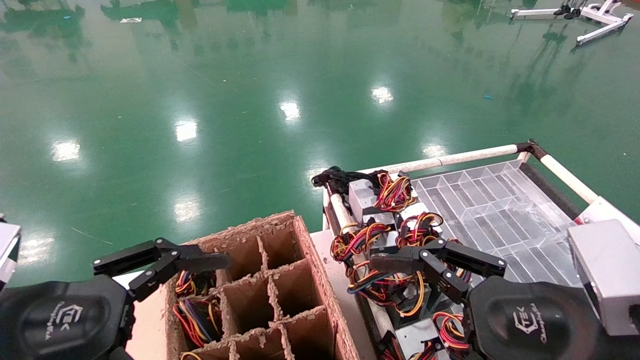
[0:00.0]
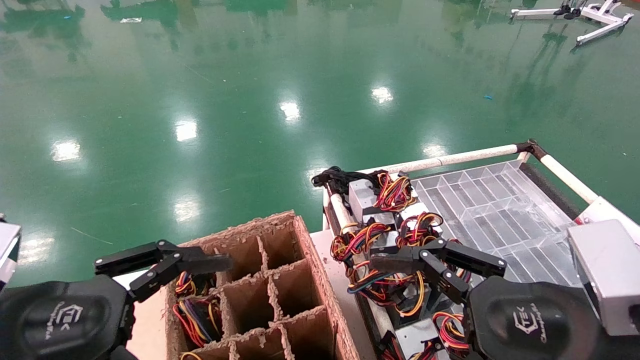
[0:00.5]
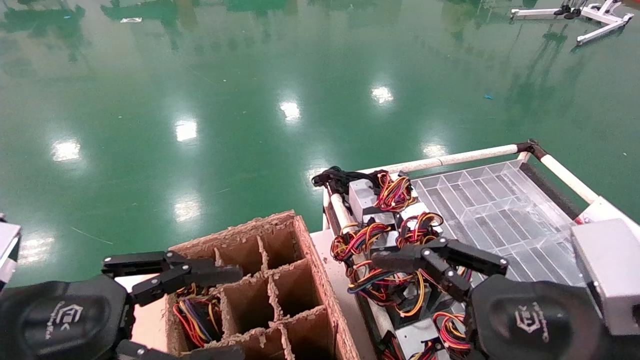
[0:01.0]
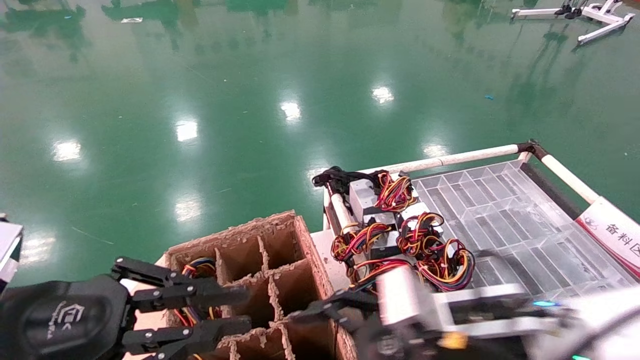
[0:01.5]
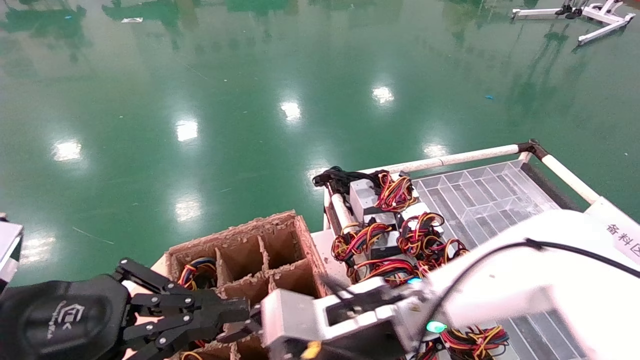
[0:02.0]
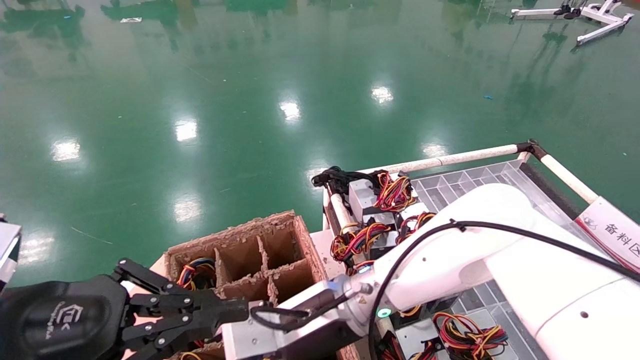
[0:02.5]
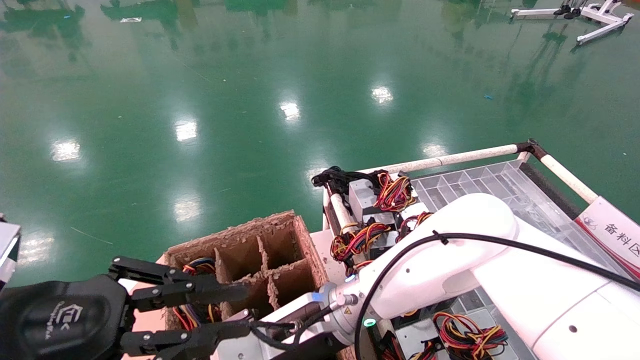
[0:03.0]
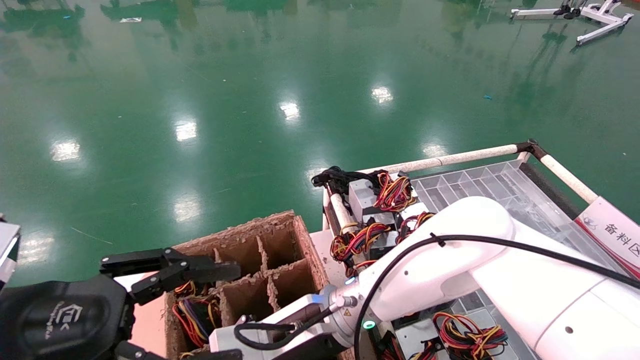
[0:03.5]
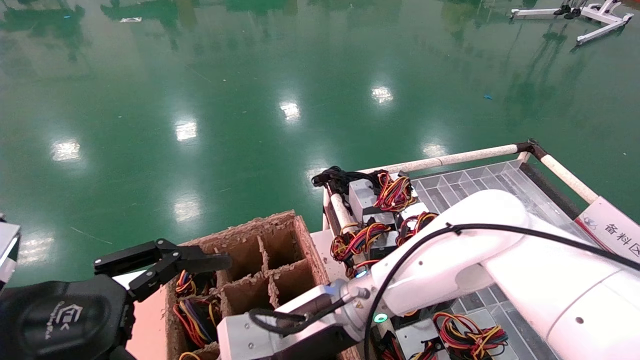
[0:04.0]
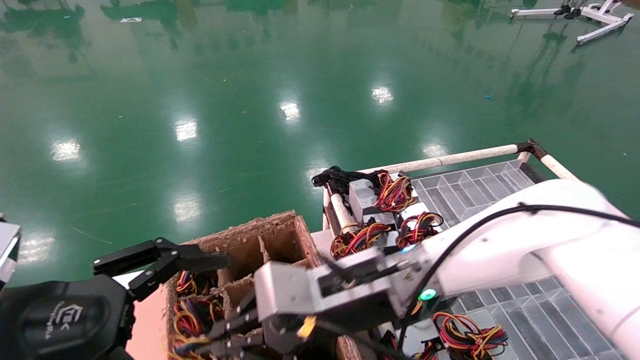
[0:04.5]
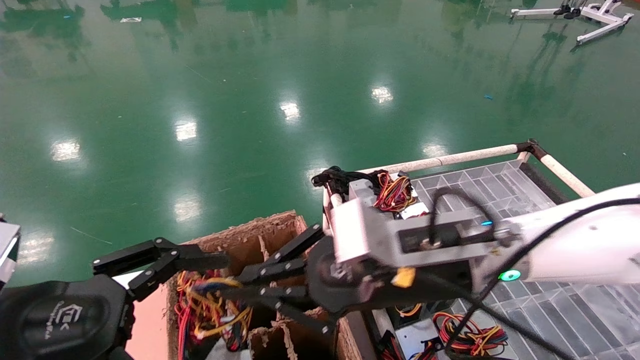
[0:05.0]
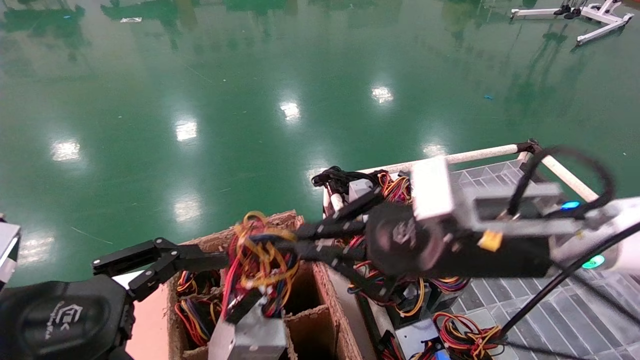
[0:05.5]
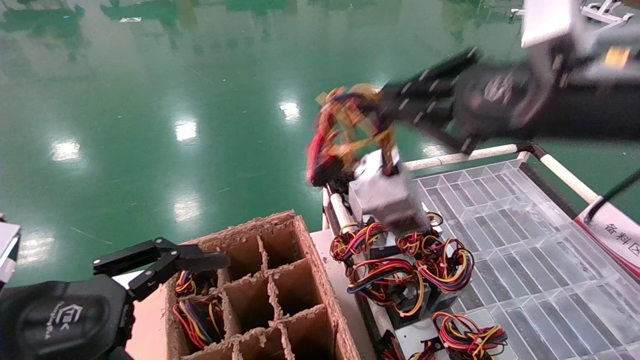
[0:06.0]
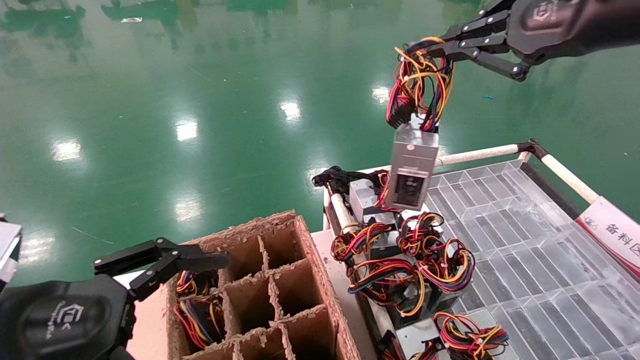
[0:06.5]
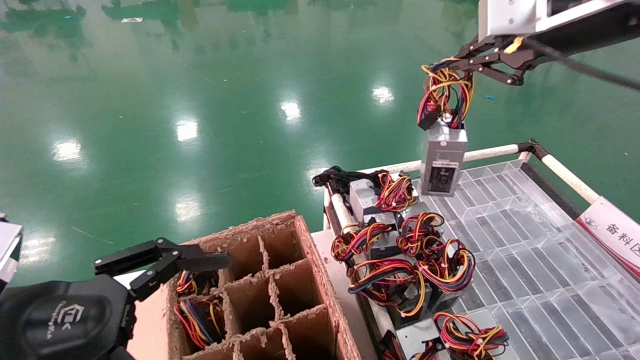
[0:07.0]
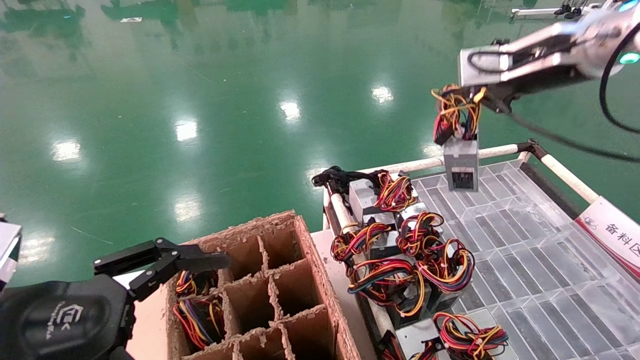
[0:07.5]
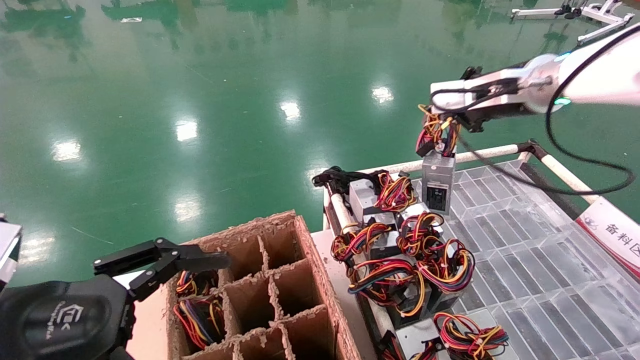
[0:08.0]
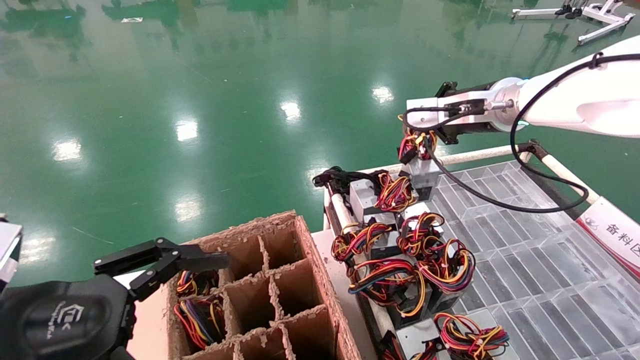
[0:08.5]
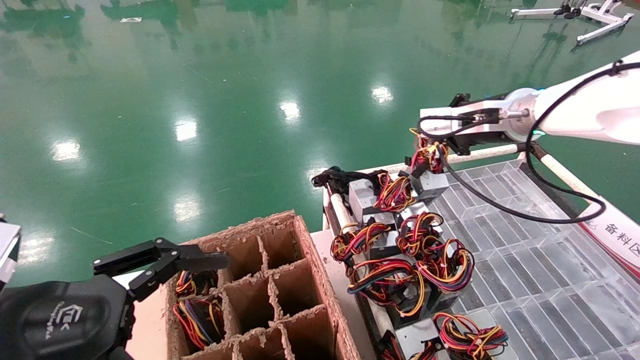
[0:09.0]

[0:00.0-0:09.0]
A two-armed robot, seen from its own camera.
Step, 0:01.0 to 0:03.5: Grab and lift the power supply from the large box.
0:00.0 to 0:02.0: The left gripper closes. Meanwhile the right gripper travels to the left and forward by roughly 20 cm.
0:02.0 to 0:04.5: The left gripper opens up. The right gripper closes.
0:04.5 to 0:07.0: The right gripper travels upward and to the right by roughly 35 cm.
0:07.0 to 0:09.0: The right gripper travels forward and downward by about 15 cm.

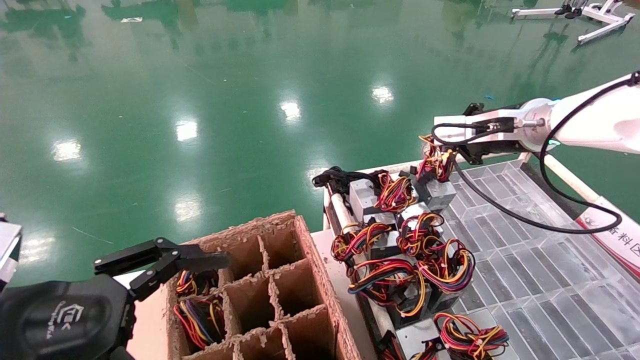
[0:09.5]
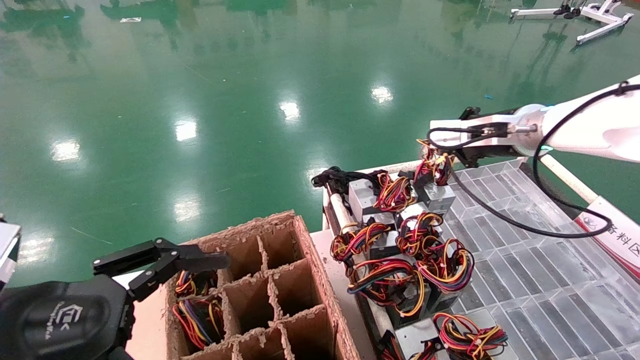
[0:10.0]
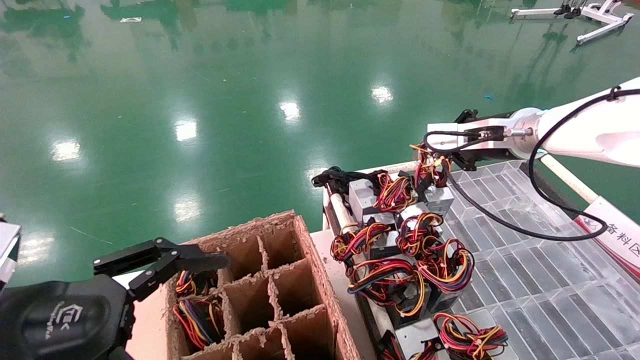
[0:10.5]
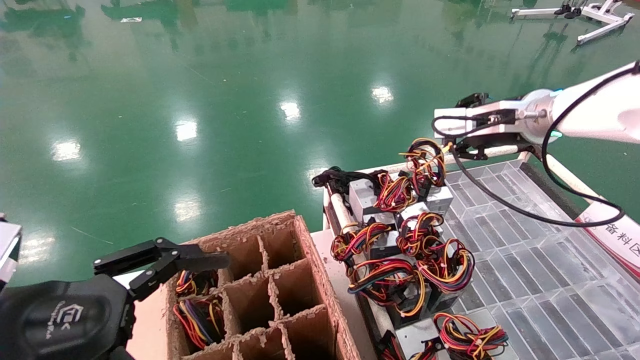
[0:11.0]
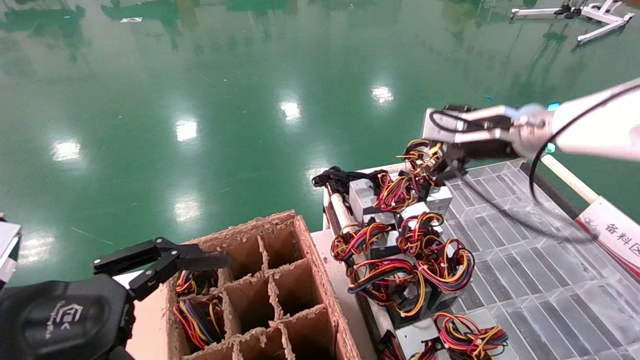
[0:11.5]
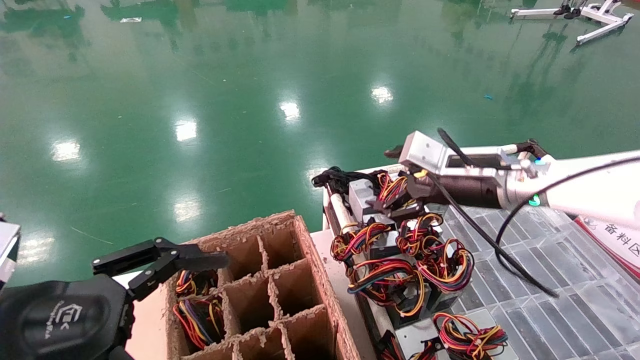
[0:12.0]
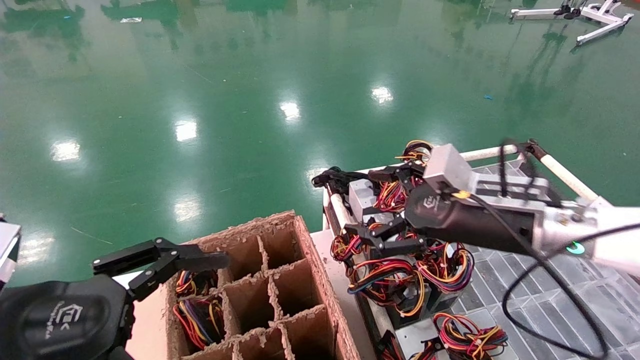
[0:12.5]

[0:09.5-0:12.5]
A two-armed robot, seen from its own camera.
0:09.5 to 0:11.0: The grippers make only small movements.
0:11.0 to 0:12.5: The right gripper shifts approximately 15 cm downward, backward and to the left, and opens.

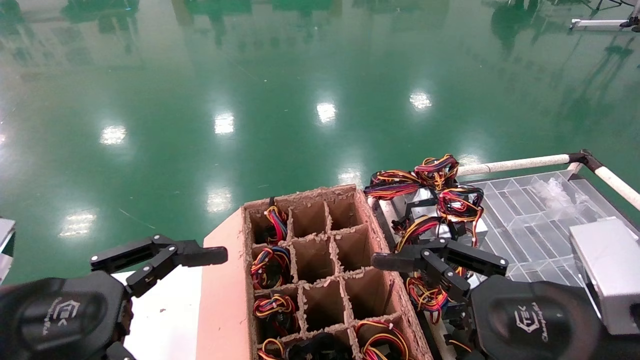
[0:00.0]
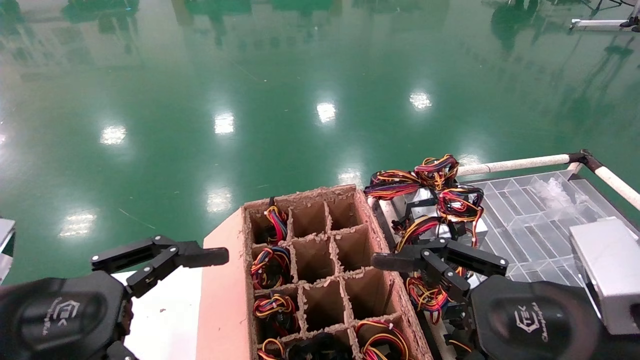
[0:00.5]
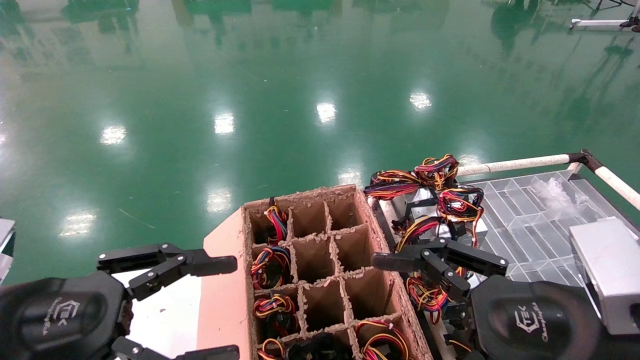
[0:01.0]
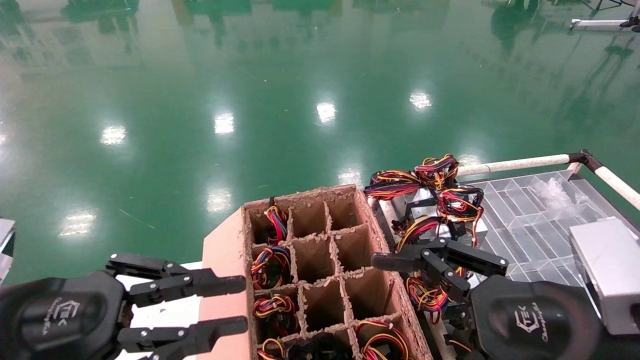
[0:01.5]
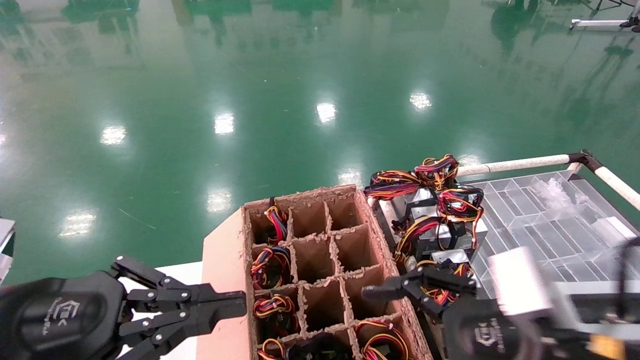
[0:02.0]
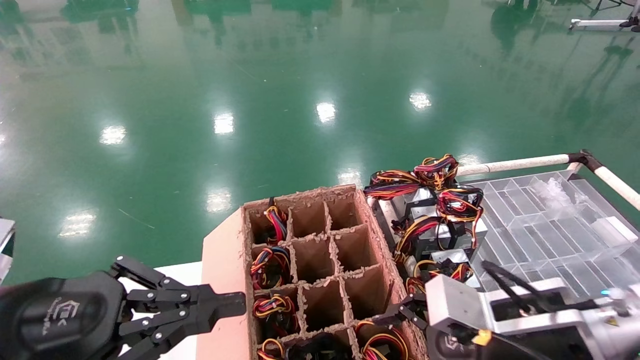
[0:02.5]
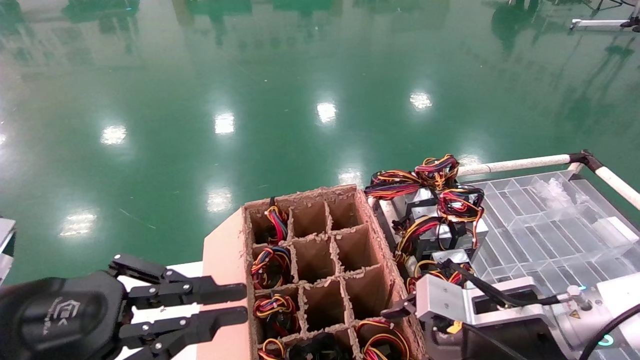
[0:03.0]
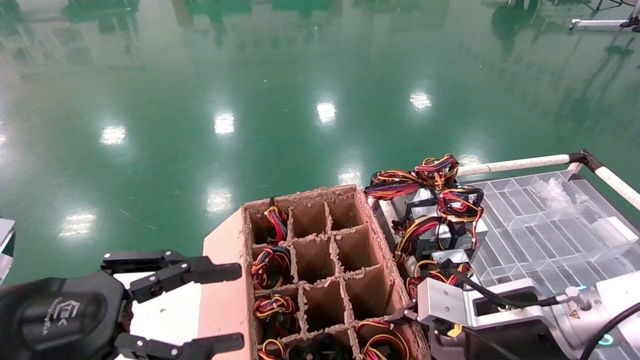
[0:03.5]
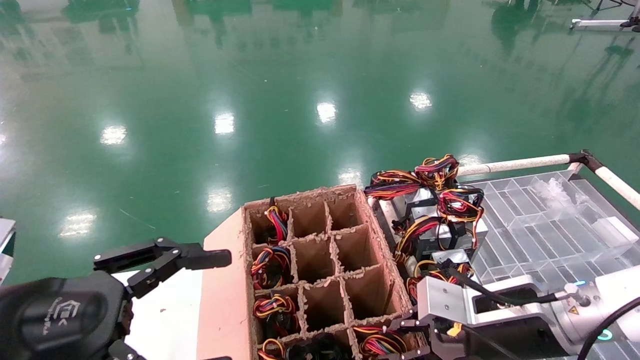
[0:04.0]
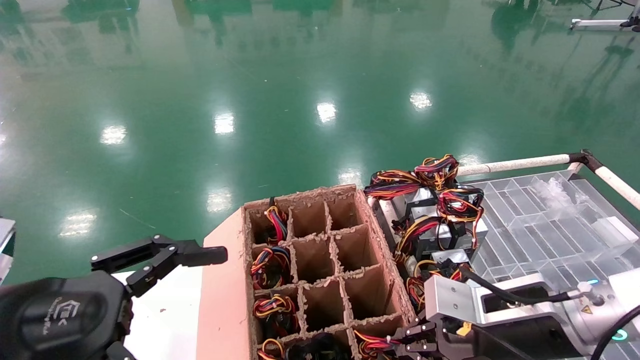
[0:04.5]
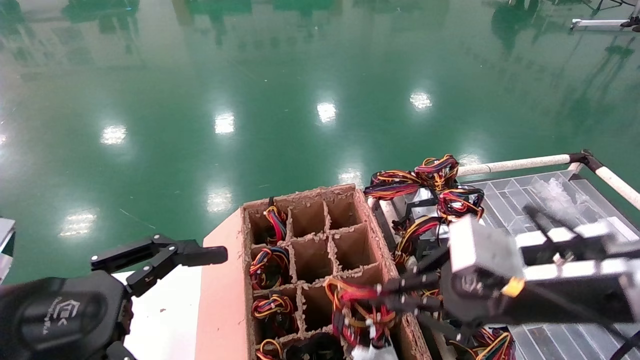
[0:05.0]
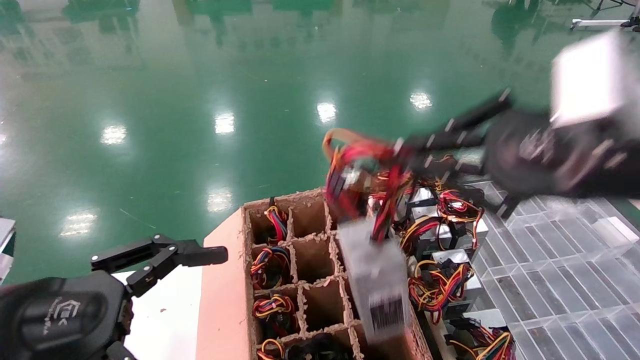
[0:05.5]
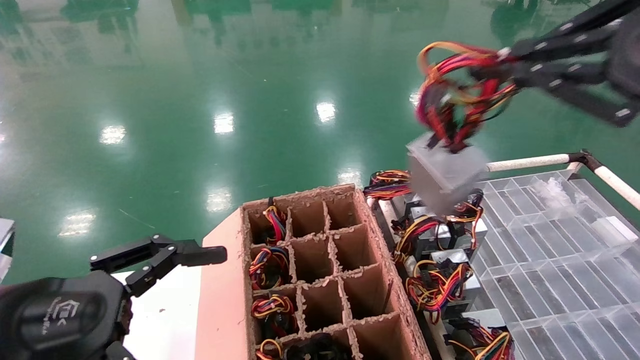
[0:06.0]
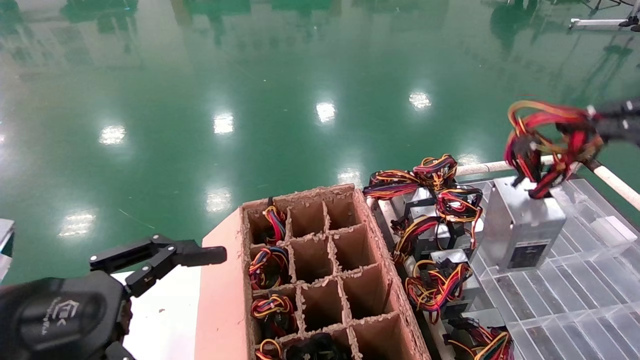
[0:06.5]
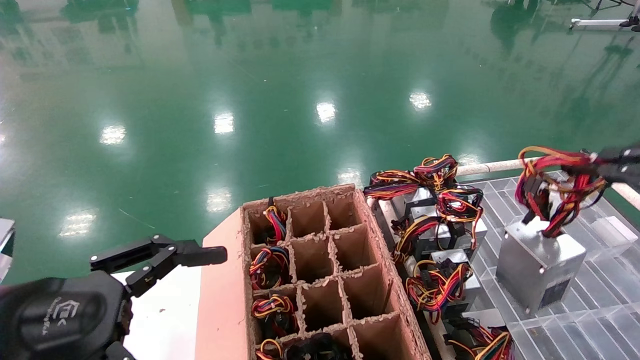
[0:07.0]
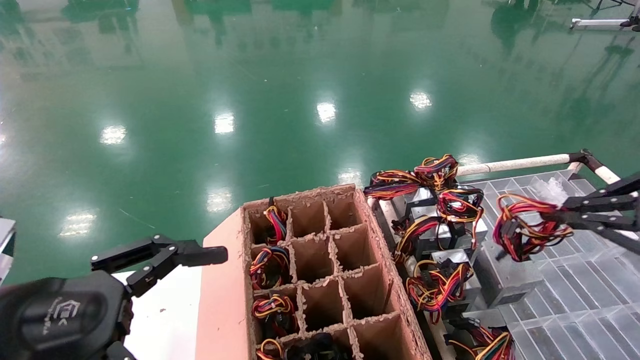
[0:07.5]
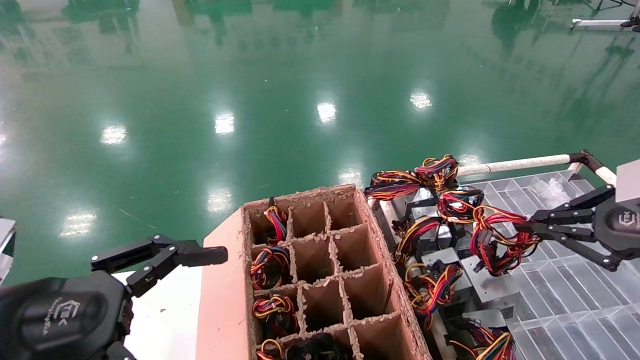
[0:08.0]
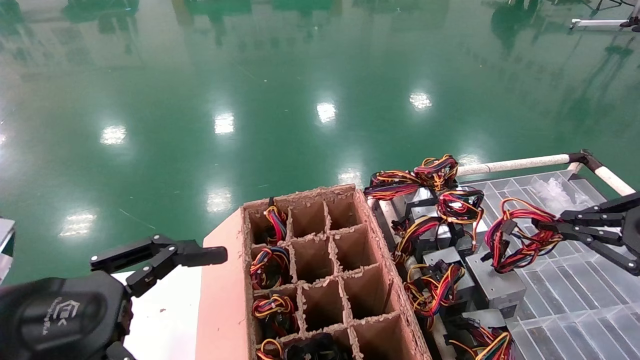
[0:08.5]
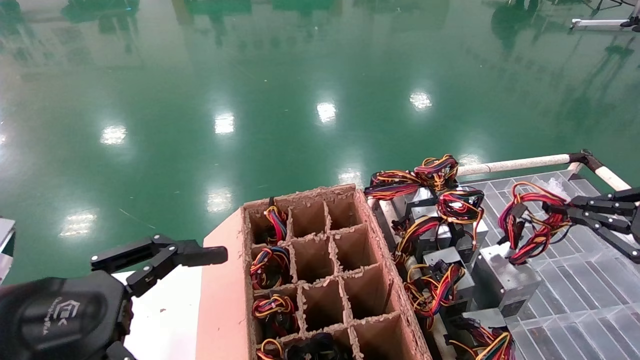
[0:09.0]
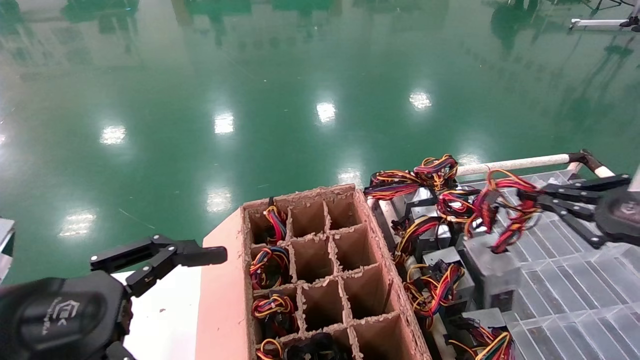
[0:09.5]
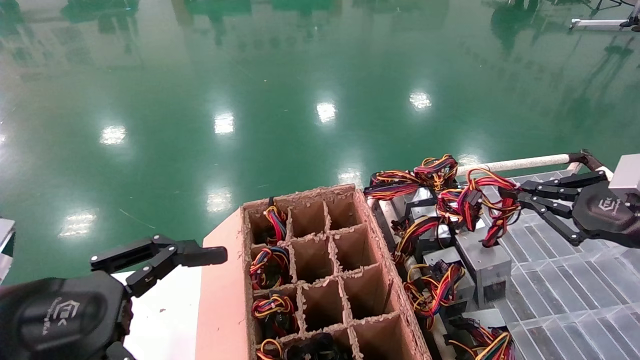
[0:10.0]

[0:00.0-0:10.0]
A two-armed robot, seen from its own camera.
Step, 0:02.5 to 0:04.5: Grab and lift the power supply from the large box.
0:00.0 to 0:02.0: The left gripper closes its fingers.
0:02.0 to 0:04.0: The left gripper opens its fingers. The right gripper is displaced forward by some 10 cm, and closes its fingers.
0:04.0 to 0:06.0: The right gripper goes about 30 cm upward and backward.
0:06.0 to 0:08.0: The right gripper heads downward, to the right and forward, covering some 20 cm.
0:08.0 to 0:10.0: The grippers make only small movements.
